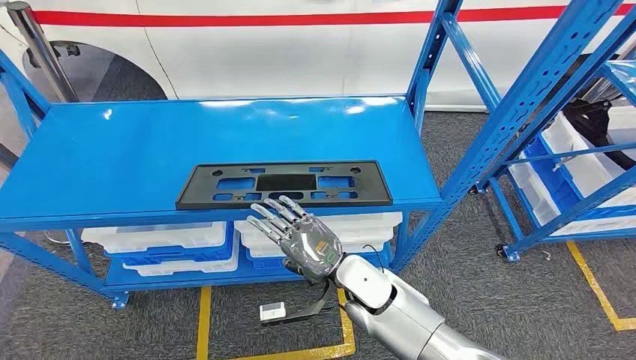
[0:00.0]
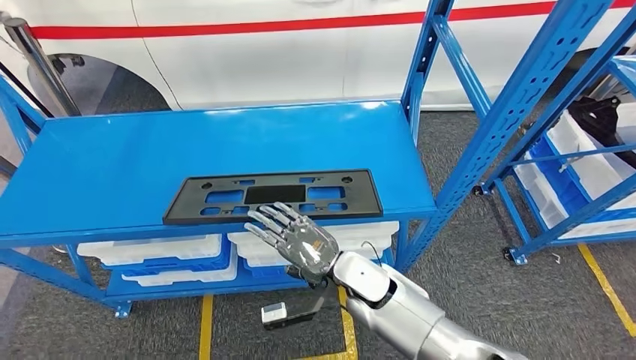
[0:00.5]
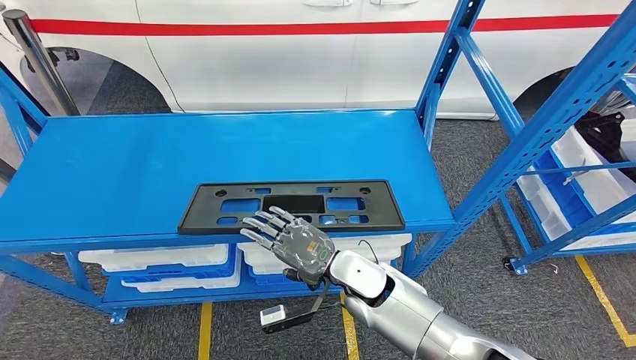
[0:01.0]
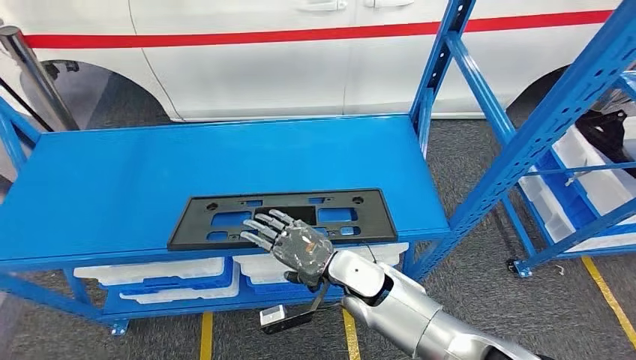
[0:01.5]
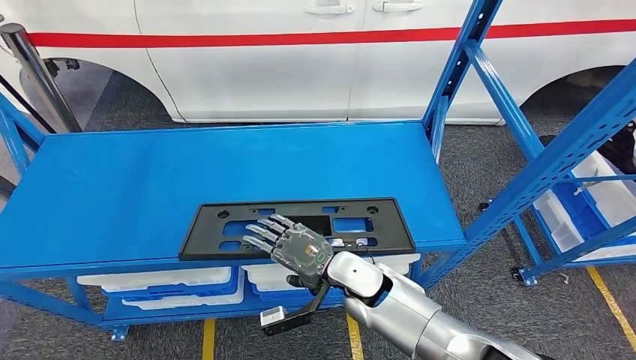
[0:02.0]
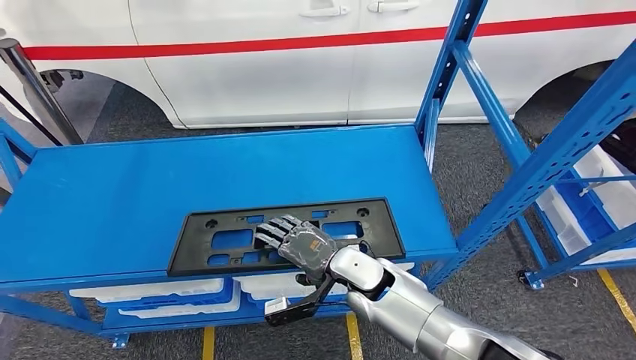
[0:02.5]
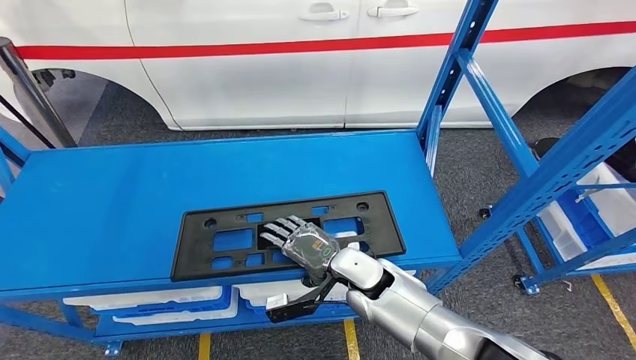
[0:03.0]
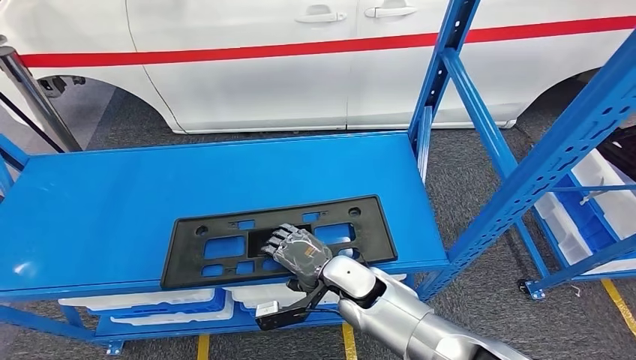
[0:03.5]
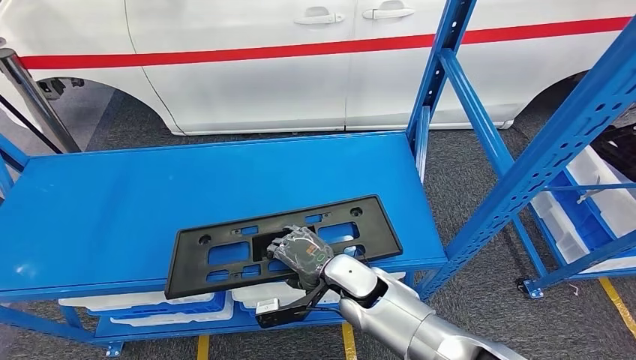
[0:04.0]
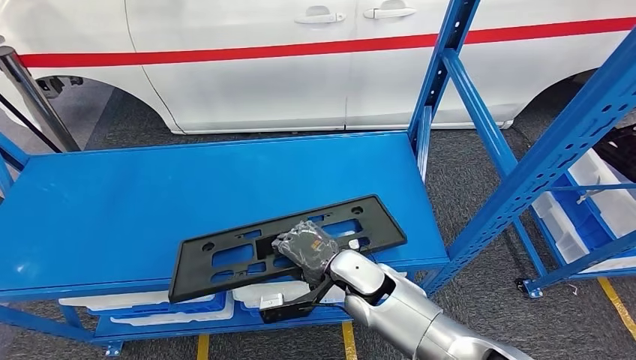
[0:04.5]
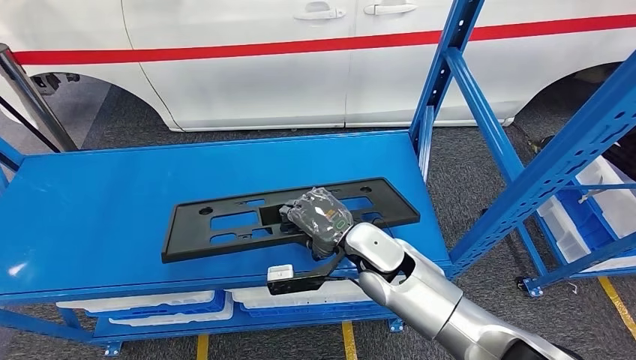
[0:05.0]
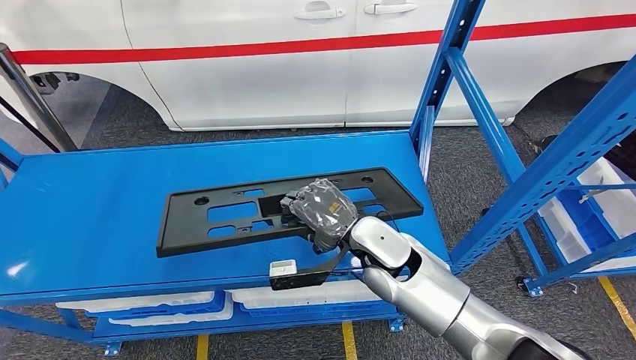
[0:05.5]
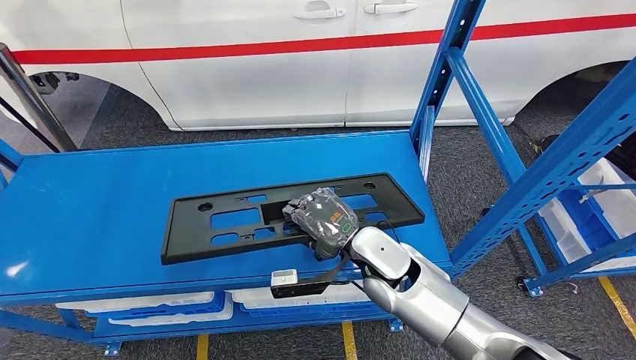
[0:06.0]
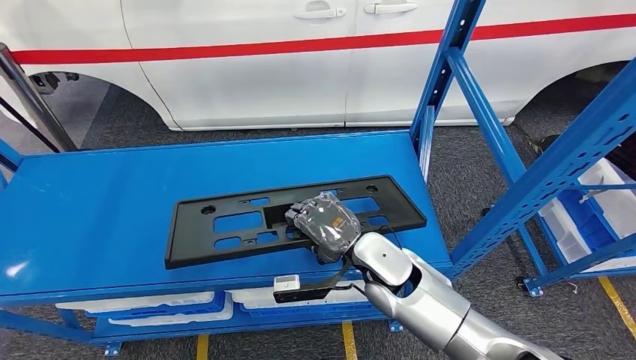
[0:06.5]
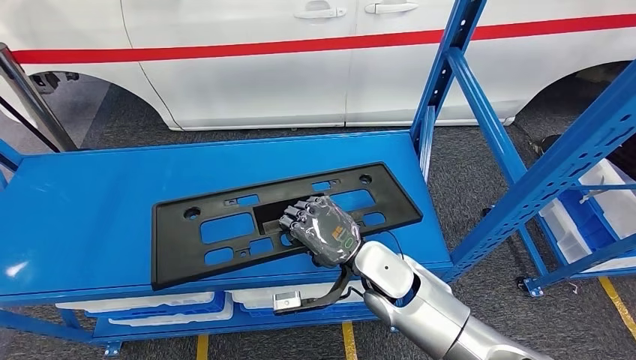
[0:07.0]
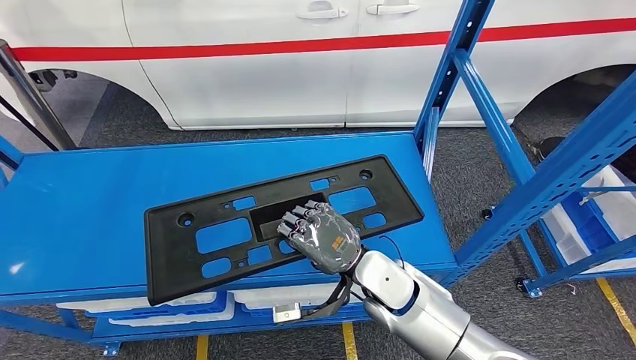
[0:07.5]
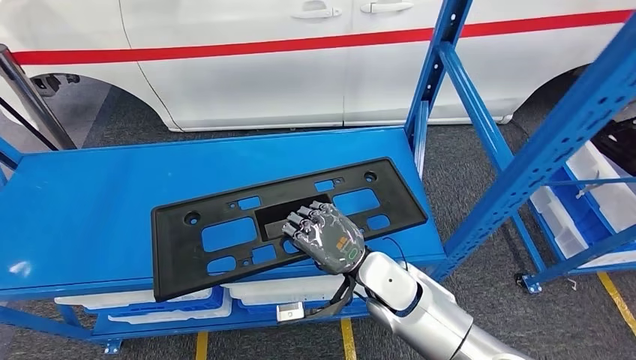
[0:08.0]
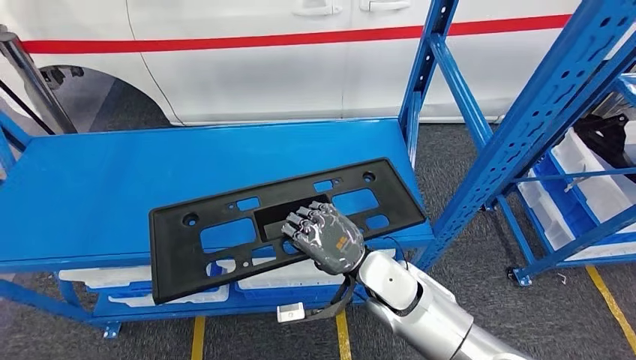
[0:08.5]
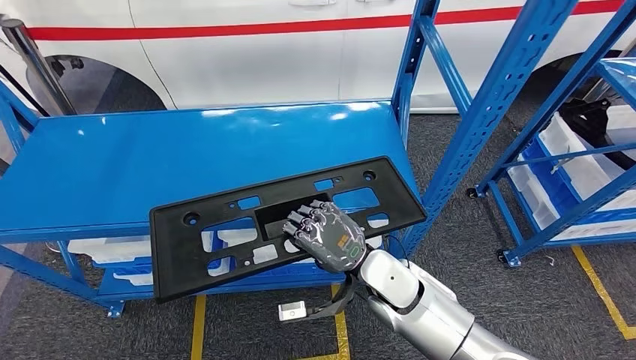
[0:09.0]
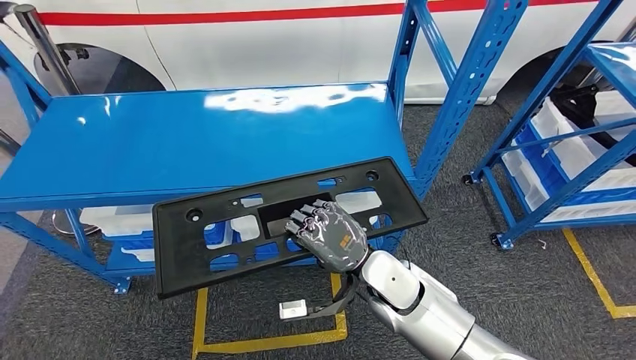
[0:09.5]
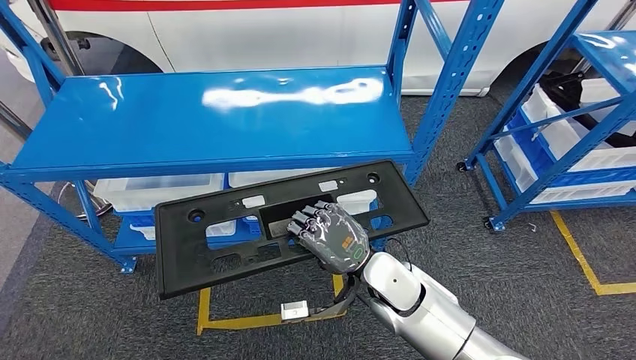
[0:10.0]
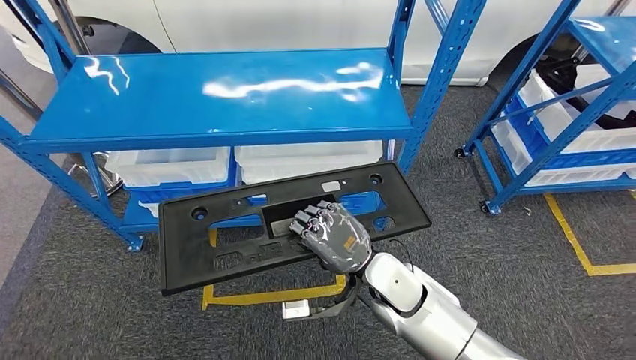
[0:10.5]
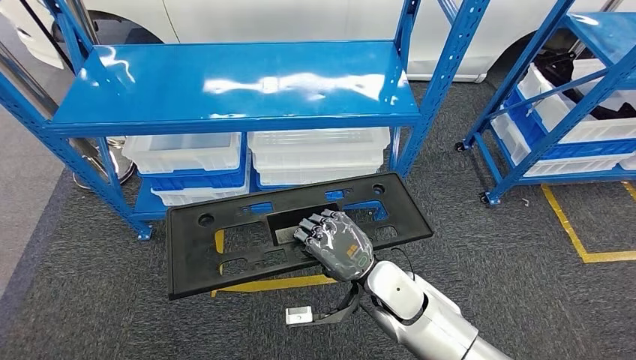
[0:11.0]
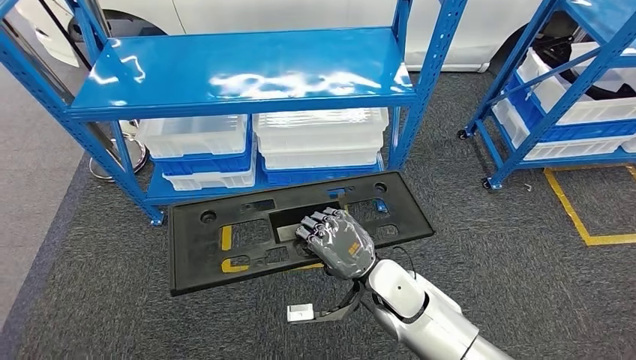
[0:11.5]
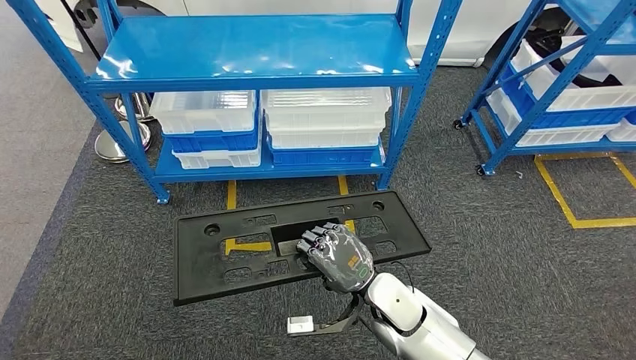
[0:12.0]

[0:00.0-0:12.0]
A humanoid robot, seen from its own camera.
Step, 0:00.0 to 0:05.5: Pick up the large material from the shelf.

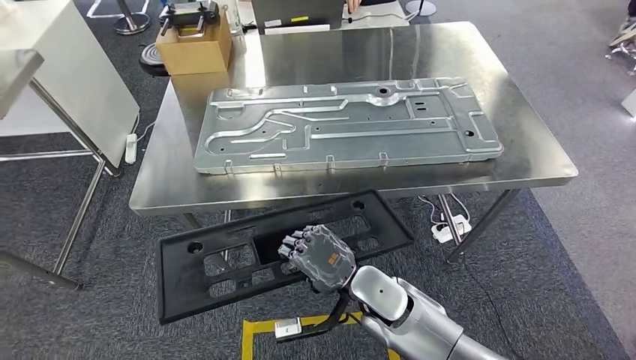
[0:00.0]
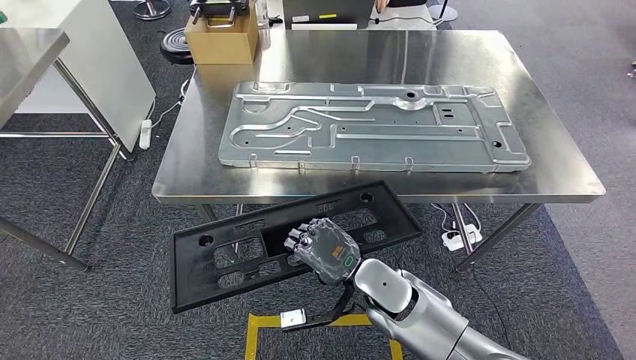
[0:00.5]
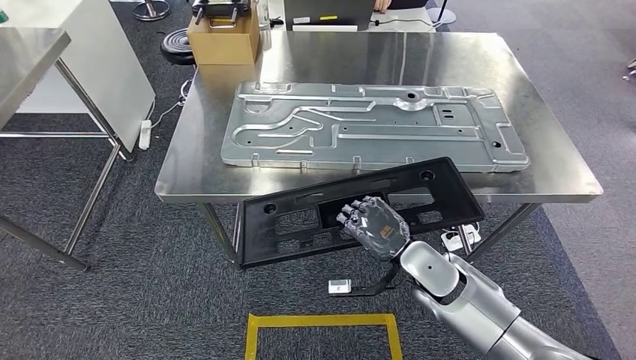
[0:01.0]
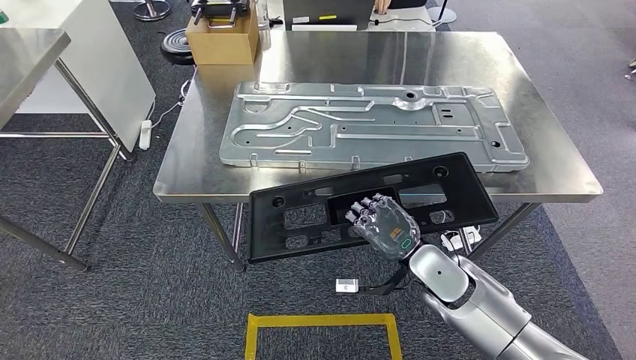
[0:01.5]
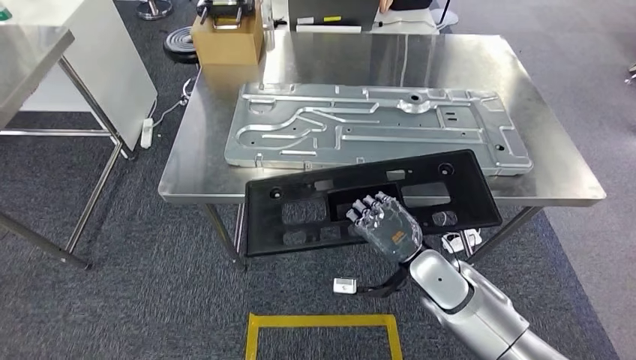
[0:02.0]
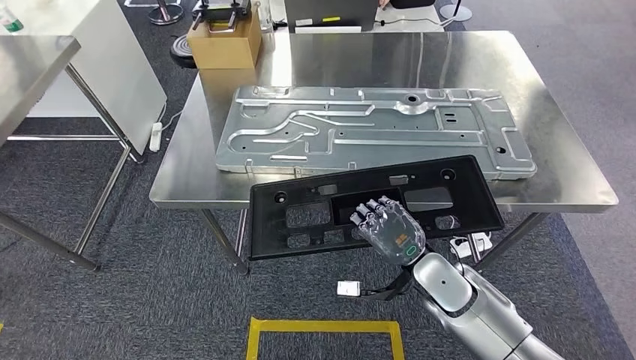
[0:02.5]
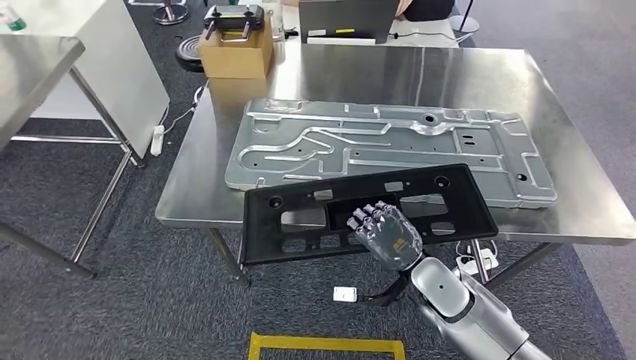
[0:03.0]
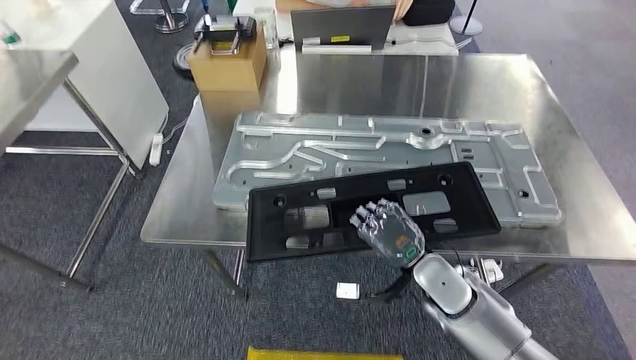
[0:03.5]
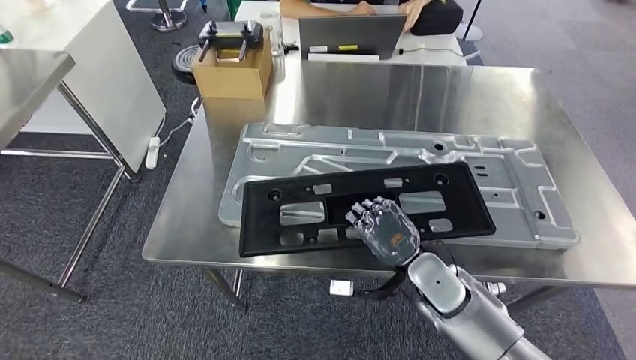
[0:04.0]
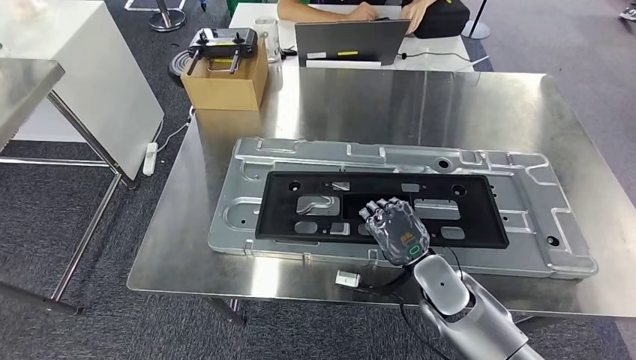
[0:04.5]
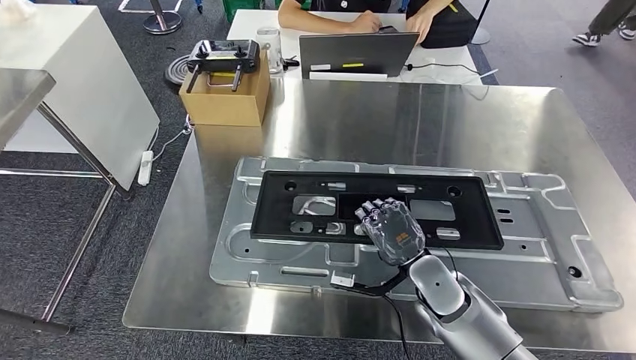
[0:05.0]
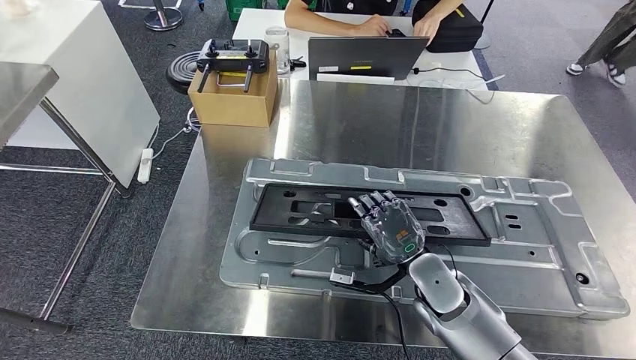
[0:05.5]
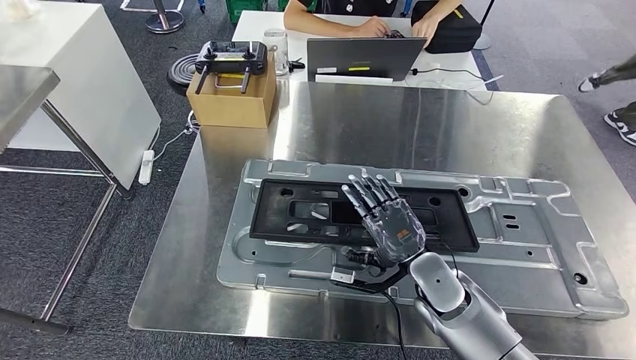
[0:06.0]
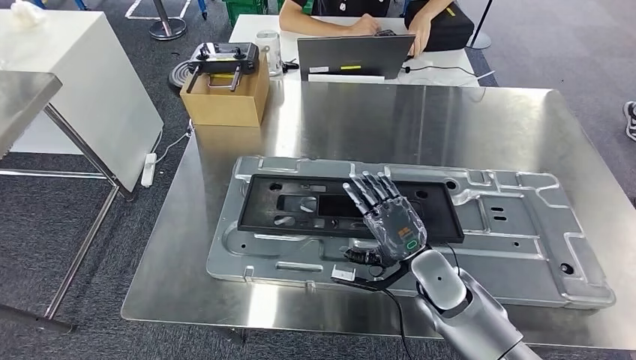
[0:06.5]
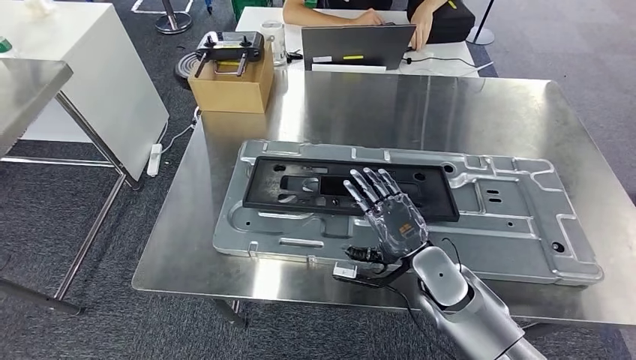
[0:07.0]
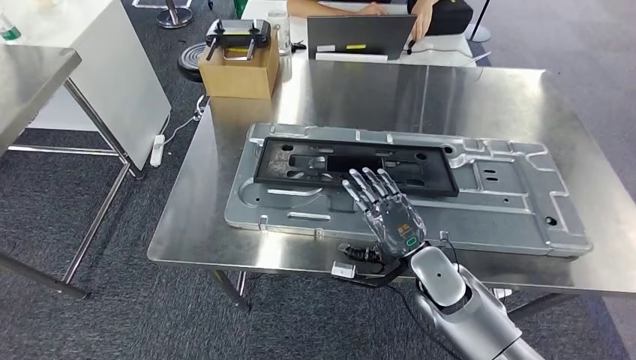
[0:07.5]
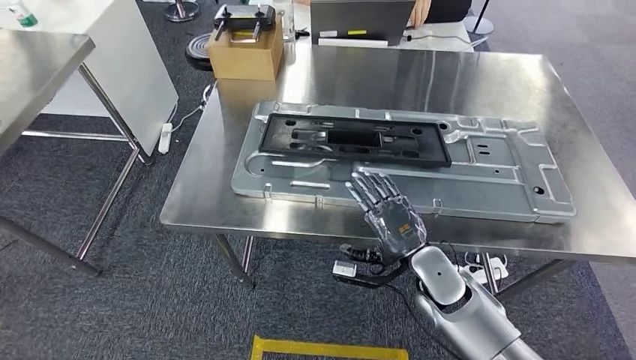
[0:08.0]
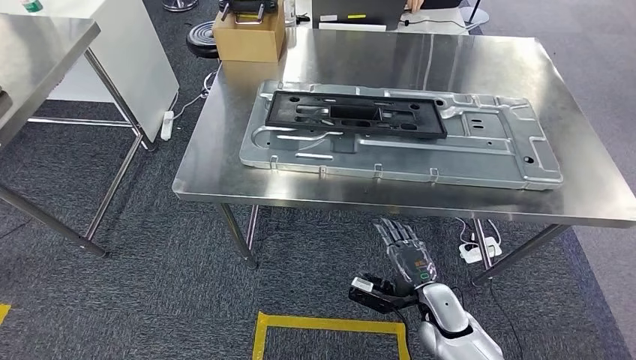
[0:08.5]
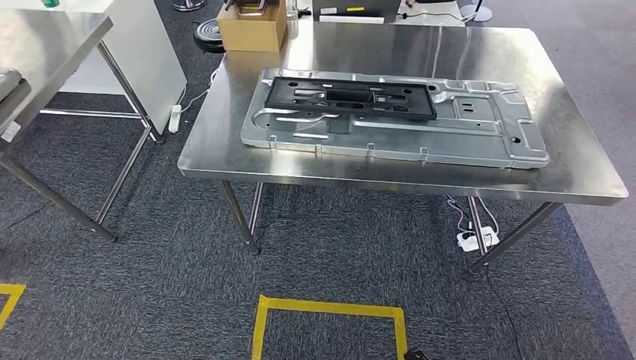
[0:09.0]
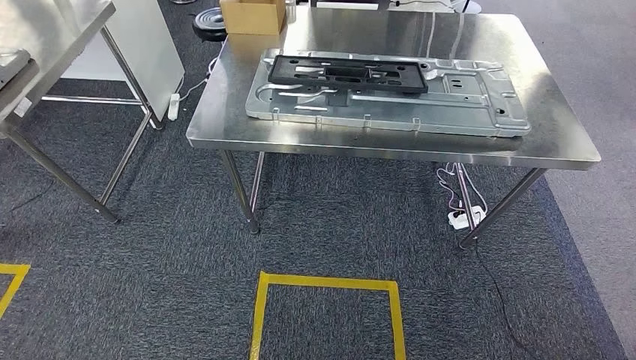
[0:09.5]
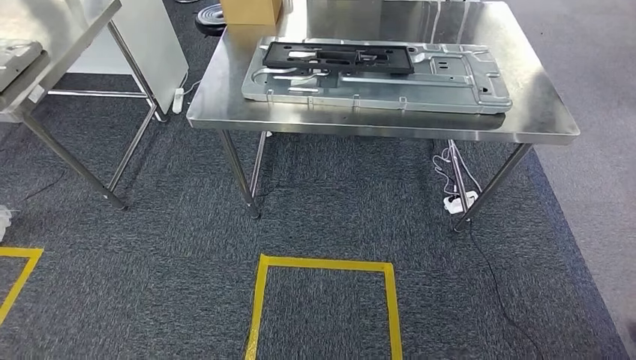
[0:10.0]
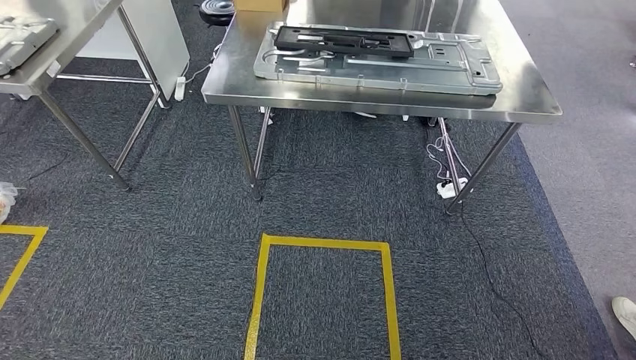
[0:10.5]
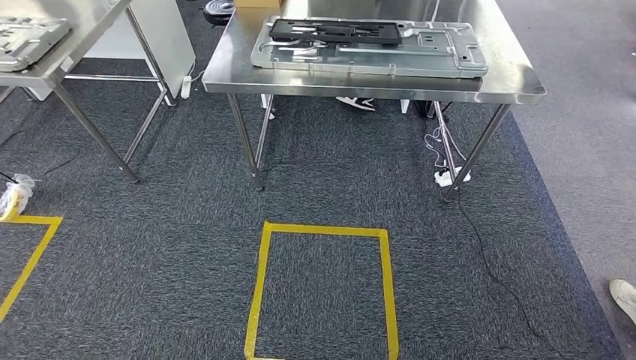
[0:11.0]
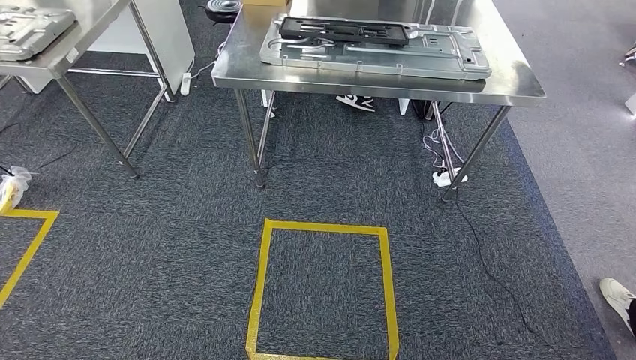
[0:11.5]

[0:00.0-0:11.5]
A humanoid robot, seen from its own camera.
Step, 0:01.0 to 0:08.5: Insert the large material into the corresponding slot on the workbench.
